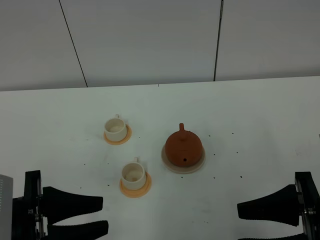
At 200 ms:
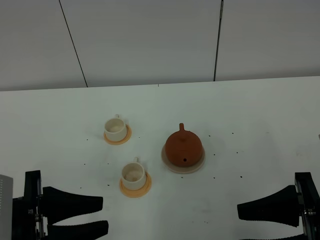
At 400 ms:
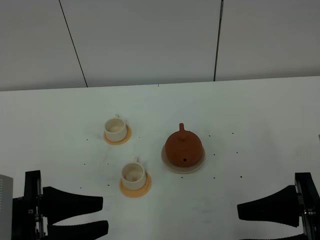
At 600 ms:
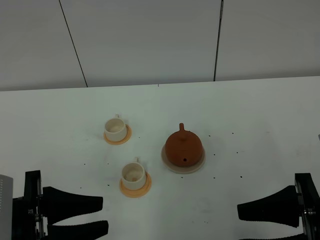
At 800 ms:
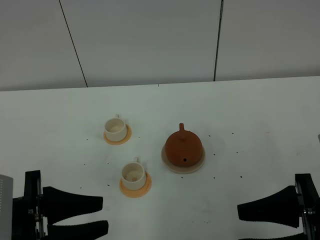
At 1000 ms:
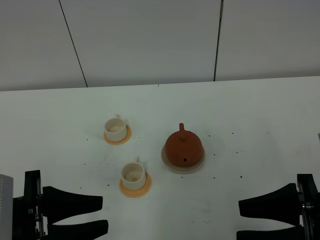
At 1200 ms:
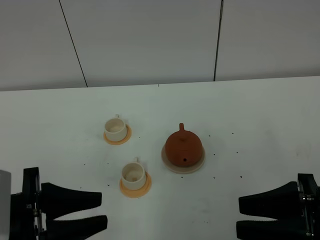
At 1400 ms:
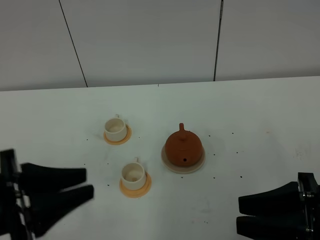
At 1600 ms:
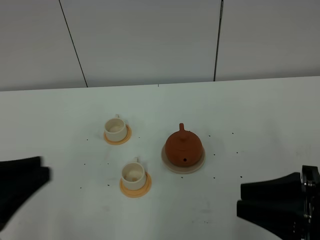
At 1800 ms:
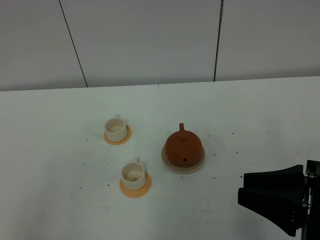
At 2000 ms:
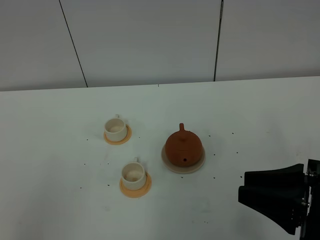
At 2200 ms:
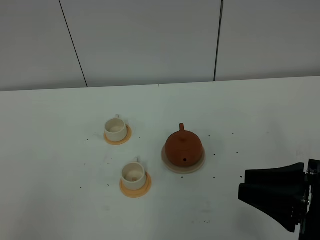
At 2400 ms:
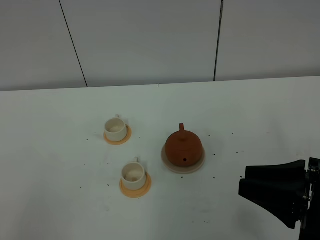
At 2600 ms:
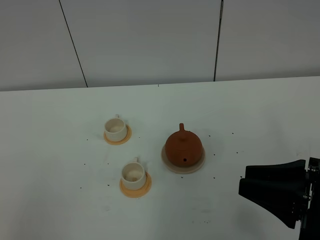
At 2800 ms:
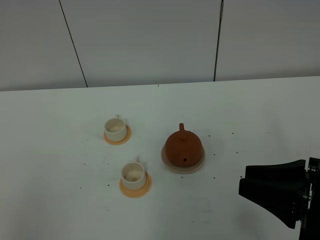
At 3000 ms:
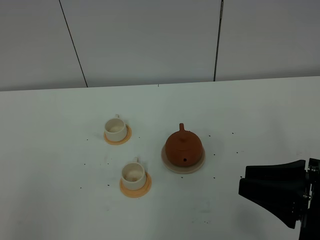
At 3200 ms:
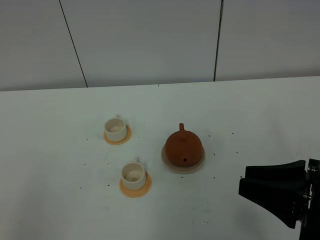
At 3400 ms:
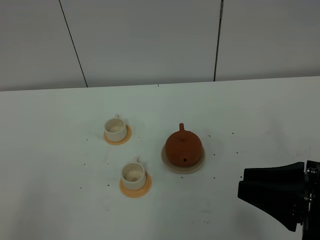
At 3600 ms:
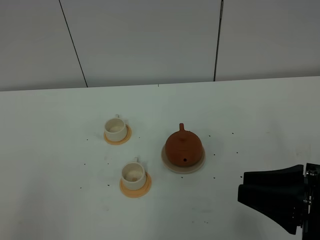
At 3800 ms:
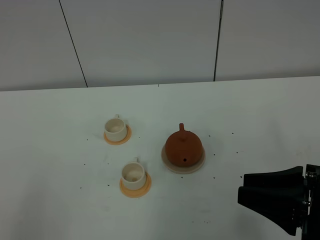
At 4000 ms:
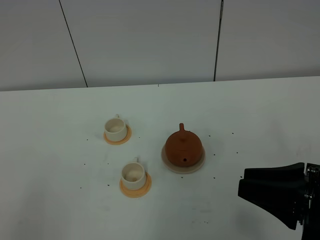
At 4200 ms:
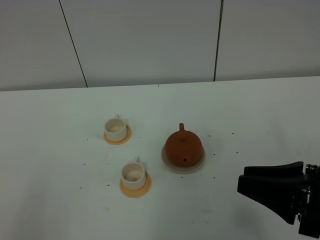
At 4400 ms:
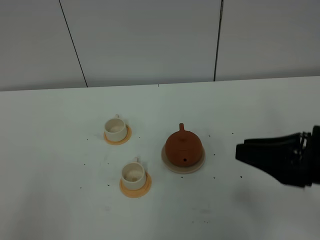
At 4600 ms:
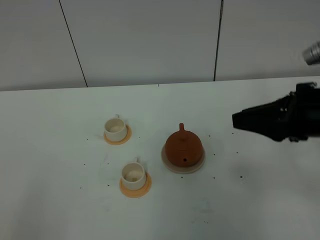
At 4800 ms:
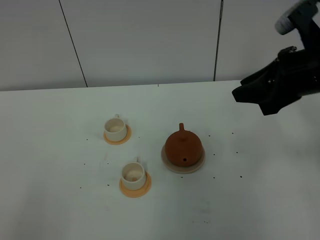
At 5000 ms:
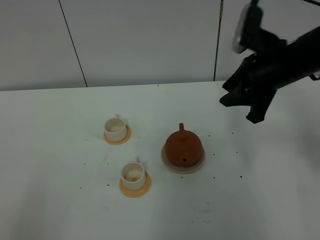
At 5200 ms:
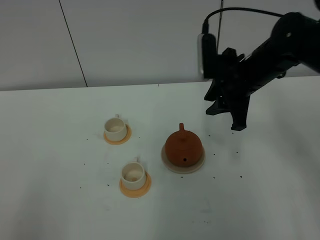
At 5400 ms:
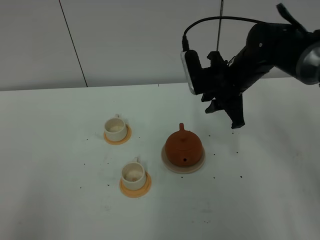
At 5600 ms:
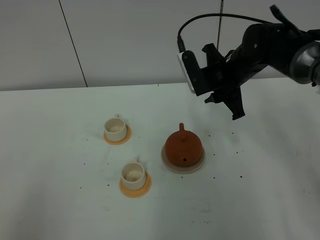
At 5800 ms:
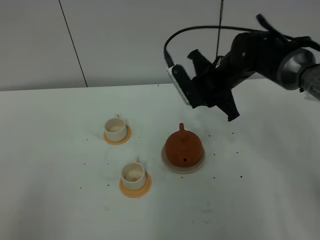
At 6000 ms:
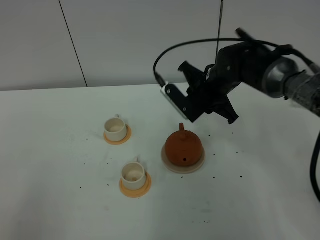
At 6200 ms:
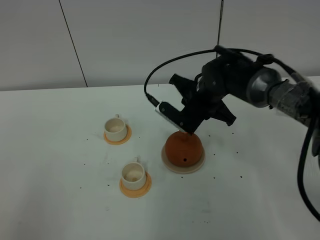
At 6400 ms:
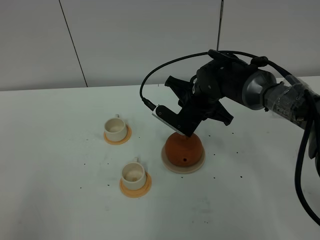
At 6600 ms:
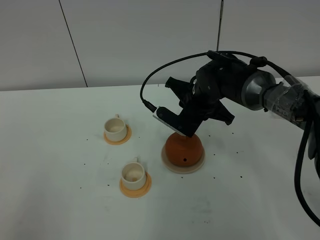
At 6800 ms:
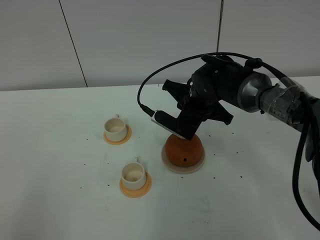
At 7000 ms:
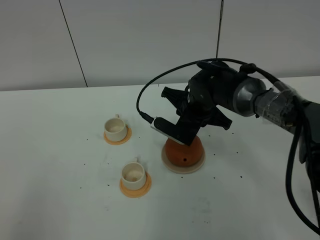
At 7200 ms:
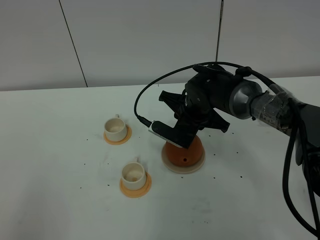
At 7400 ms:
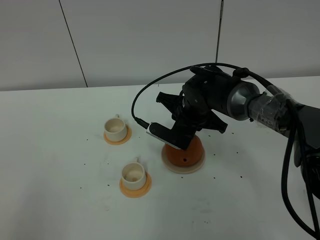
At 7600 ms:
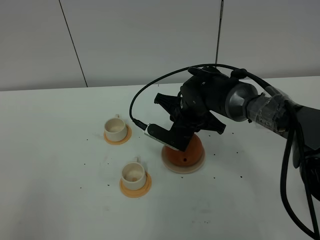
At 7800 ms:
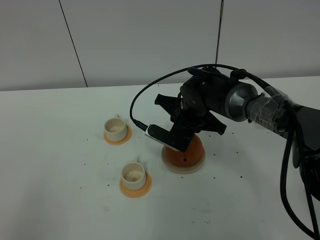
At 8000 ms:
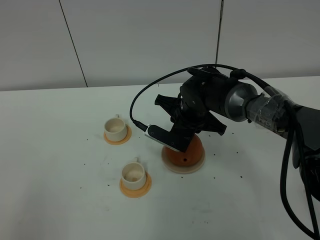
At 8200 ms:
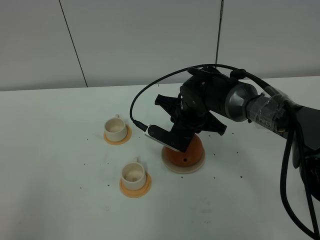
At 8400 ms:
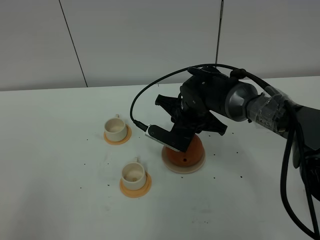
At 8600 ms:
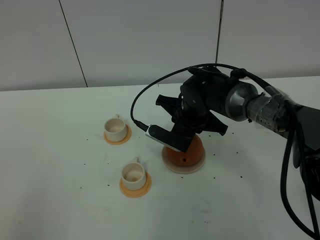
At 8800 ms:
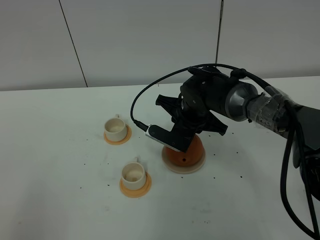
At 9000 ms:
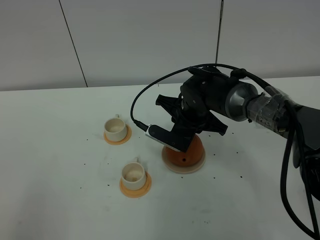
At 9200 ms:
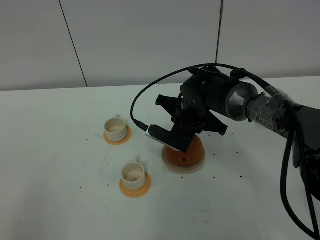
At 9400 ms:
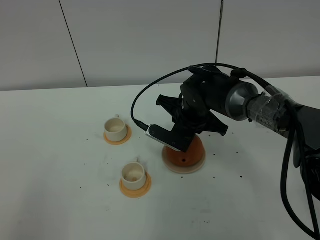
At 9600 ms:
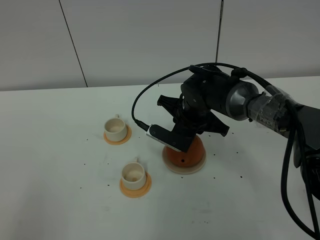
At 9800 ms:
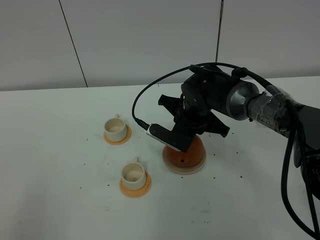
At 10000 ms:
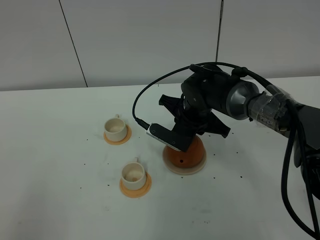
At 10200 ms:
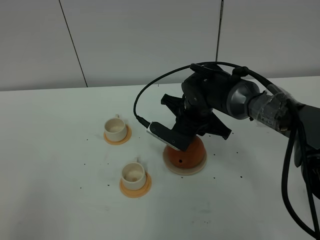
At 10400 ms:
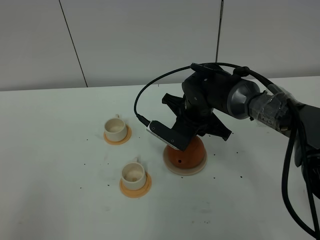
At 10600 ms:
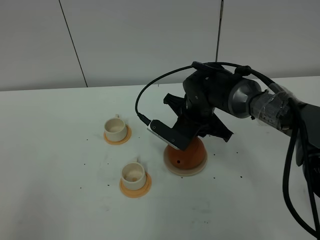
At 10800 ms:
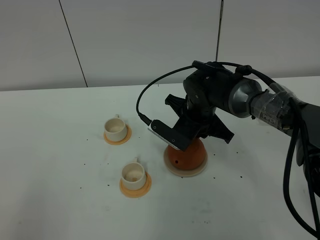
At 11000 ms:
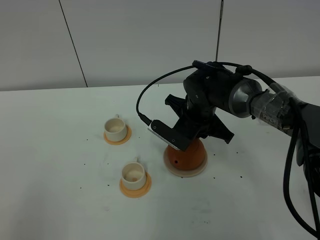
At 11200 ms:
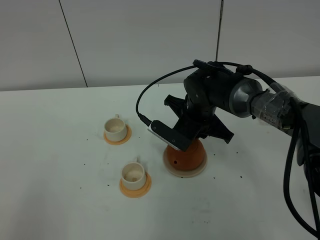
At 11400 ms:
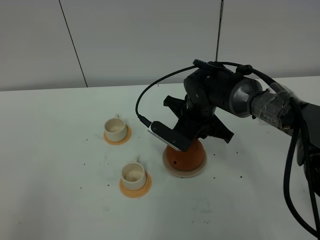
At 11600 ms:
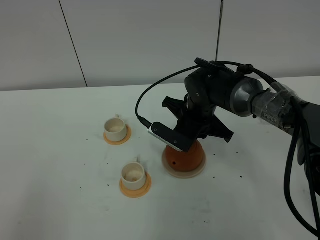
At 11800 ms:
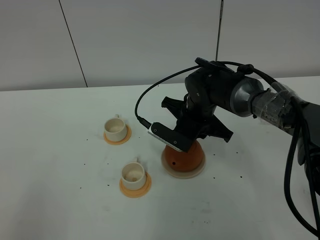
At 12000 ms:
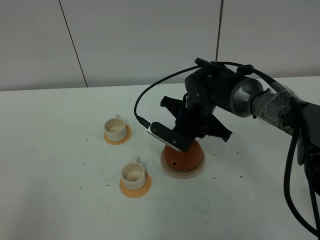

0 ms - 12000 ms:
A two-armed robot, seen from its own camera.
Task of the whole recording: grasp the brown teapot and pour the tea into the two white teacups one by one, put the brown teapot back in its original place.
0 ms - 1600 ms: The left gripper is displaced upward by approximately 10 cm, and closes.
1600 ms - 3000 ms: The left gripper is displaced backward and to the left by approximately 15 cm, and closes its fingers.
4400 ms - 6000 ms: The right gripper shifts roughly 30 cm forward and to the left; the left gripper opens up.
6000 ms - 7600 ms: The right gripper changes place by approximately 5 cm.
7600 ms - 9000 ms: Neither gripper changes place.
9000 ms - 10400 ms: There are only small adjustments of the grippers.
10400 ms - 12000 ms: Both grippers stay about where they are.

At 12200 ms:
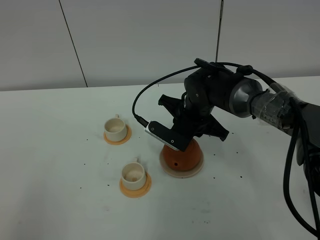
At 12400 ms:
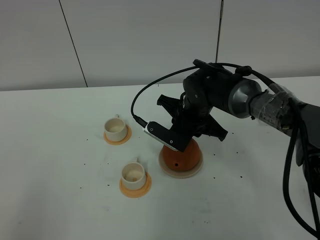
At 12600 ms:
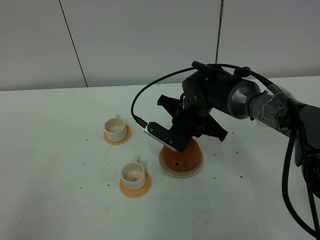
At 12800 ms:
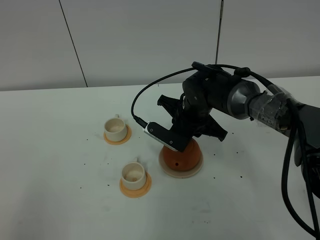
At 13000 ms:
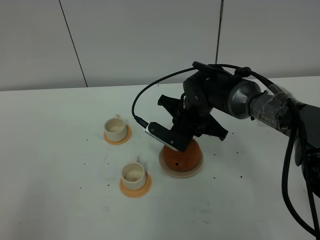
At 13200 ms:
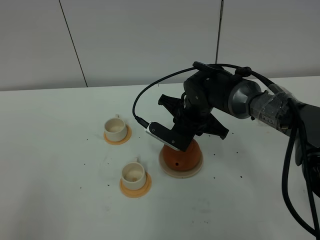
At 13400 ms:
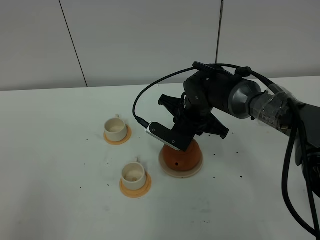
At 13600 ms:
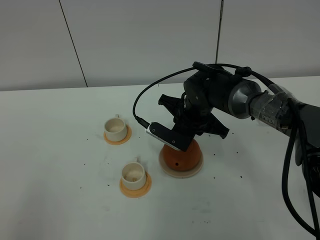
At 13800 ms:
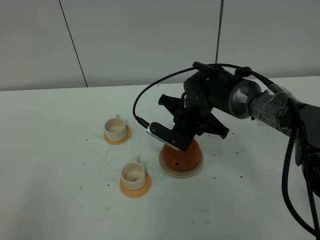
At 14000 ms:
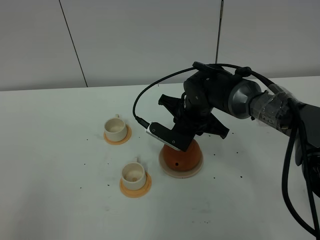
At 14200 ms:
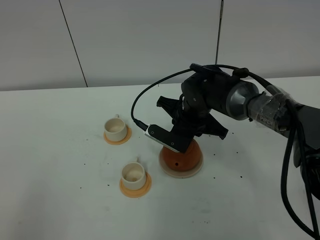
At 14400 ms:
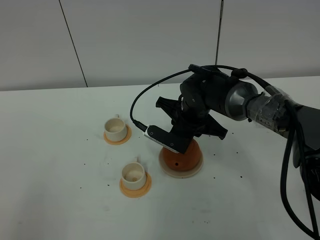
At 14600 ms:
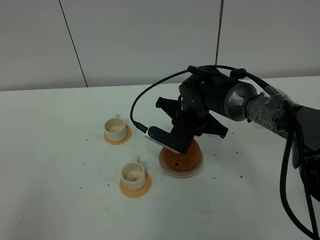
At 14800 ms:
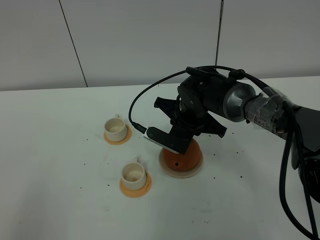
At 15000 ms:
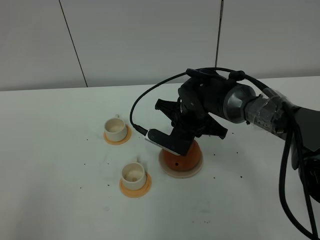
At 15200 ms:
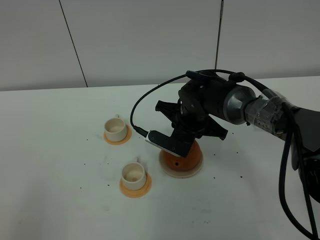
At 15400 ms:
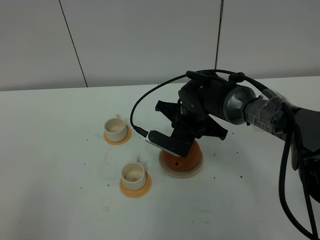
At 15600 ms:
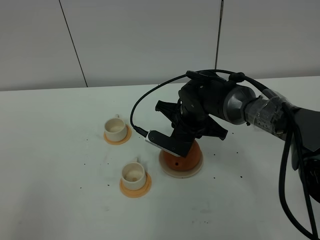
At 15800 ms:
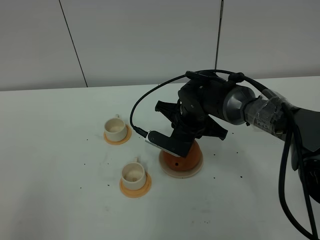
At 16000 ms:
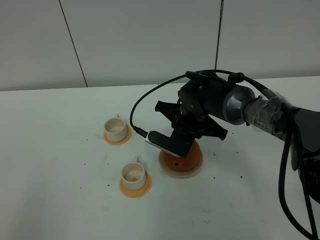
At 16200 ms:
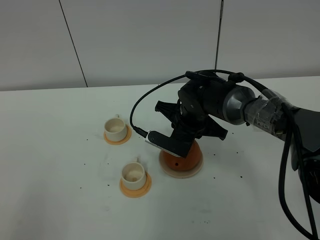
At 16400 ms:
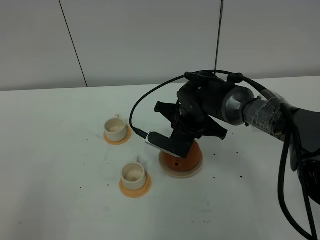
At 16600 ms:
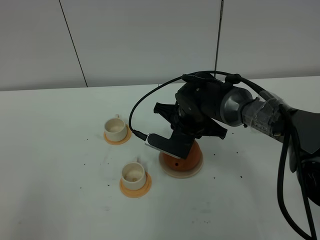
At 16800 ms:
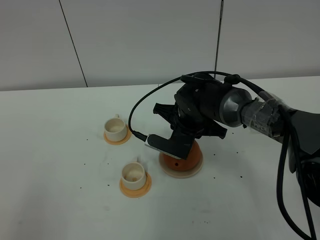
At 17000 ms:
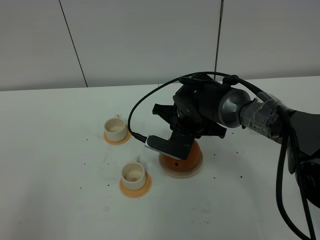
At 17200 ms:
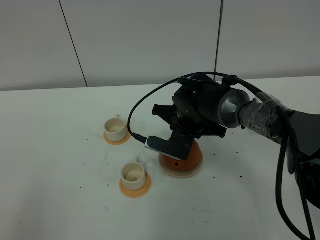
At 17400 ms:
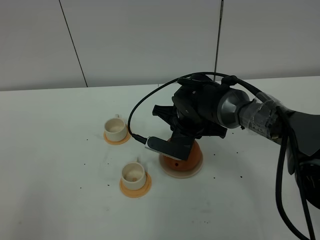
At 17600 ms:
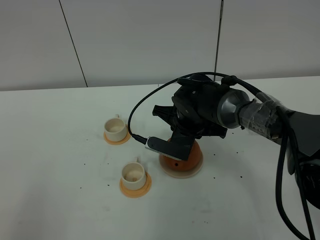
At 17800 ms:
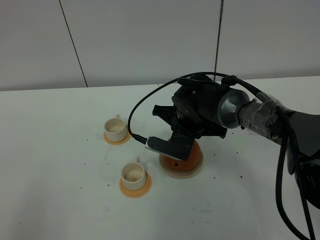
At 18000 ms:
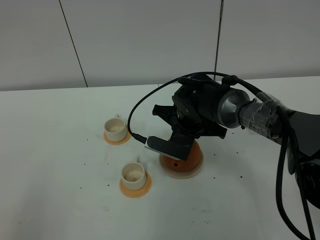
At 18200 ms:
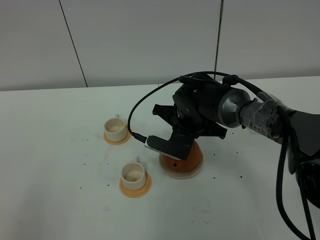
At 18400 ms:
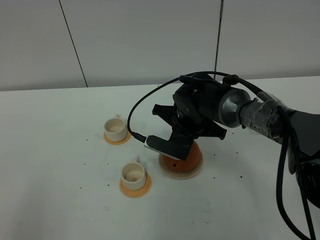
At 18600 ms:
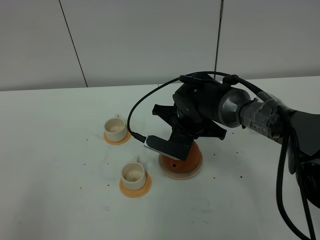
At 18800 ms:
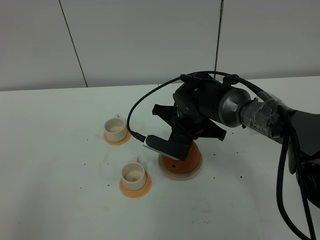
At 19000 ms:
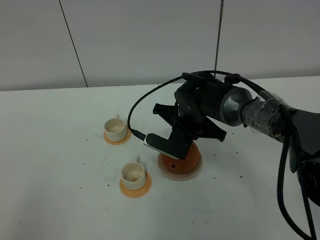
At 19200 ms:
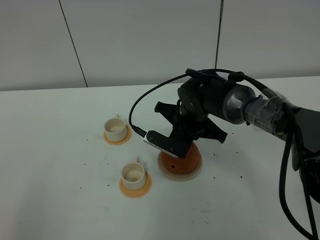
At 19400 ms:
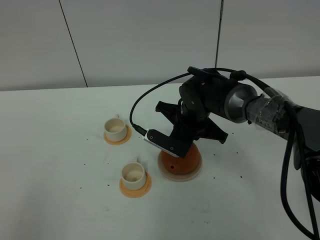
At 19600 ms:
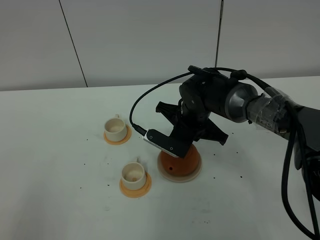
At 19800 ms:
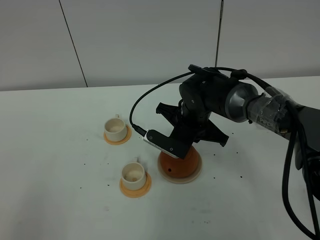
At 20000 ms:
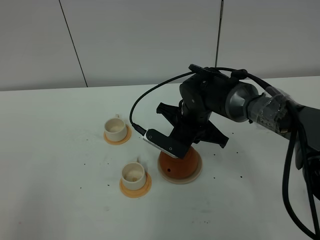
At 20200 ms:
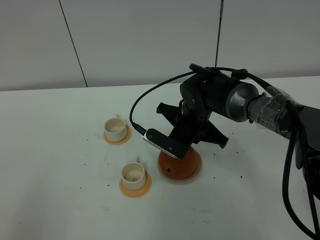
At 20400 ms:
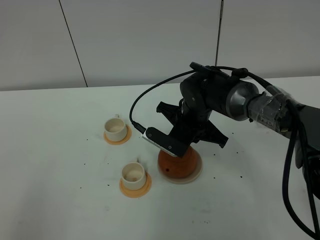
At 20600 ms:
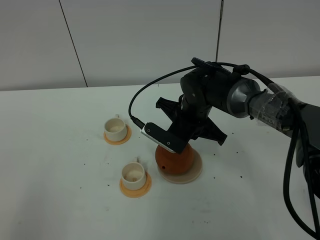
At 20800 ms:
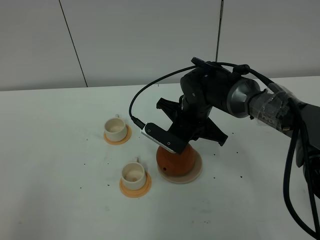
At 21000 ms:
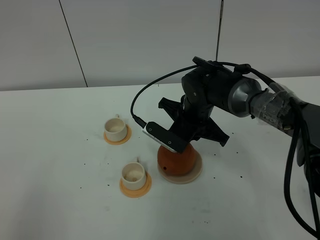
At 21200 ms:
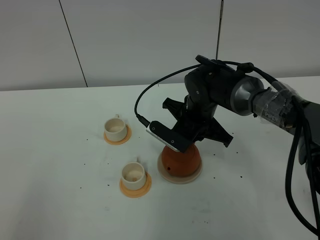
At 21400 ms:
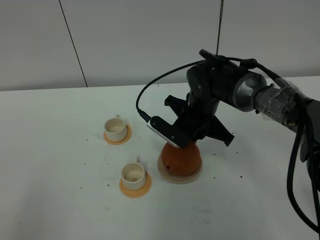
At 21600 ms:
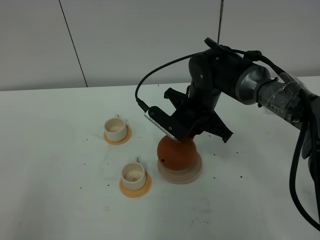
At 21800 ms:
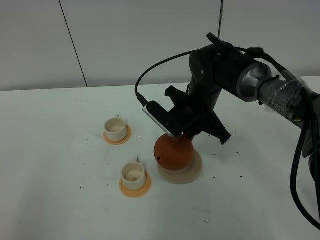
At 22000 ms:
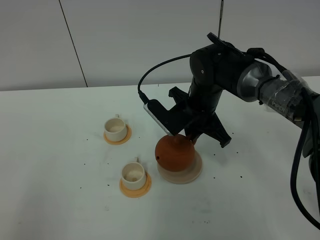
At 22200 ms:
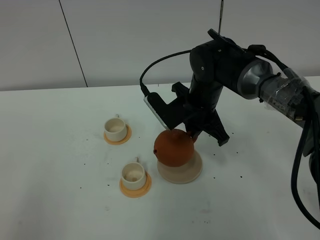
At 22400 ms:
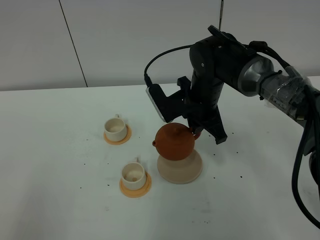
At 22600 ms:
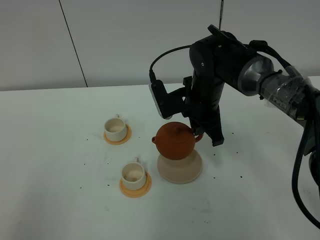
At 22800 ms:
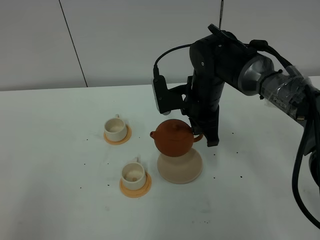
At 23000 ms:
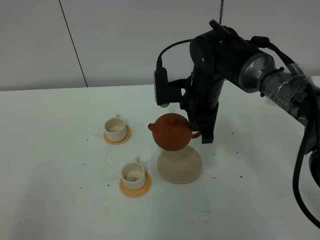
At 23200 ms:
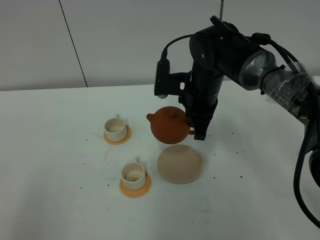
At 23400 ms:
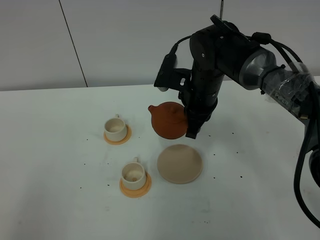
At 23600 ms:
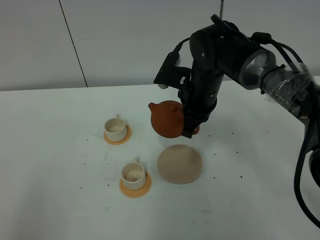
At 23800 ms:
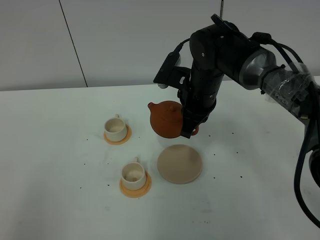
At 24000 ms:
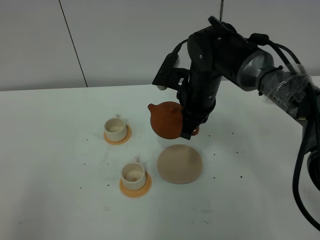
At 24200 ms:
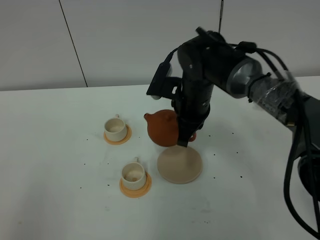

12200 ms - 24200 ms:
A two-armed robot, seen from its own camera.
Task of the whole recording: grasp the brown teapot and pour the tea into the two white teacups one by one, put the brown teapot back in its original place.
Step, 12200 ms - 21800 ms: Pick up the teapot with the right gripper.
12200 ms - 13800 ms: The two grippers keep their place.
13800 ms - 15200 ms: Neither gripper changes place.
15200 ms - 16600 ms: Both grippers stay about where they are.
16600 ms - 18200 ms: The right gripper closes up.
18200 ms - 21200 ms: The grippers make only small movements.
